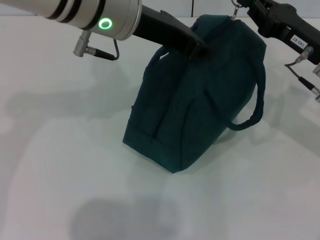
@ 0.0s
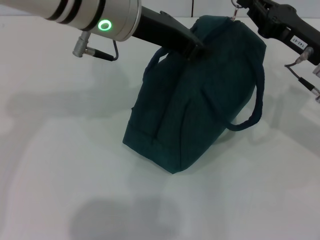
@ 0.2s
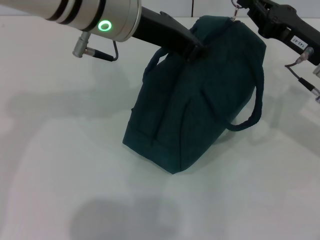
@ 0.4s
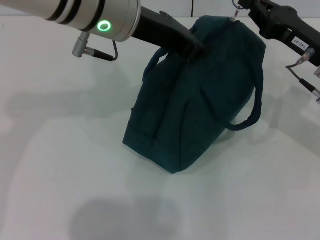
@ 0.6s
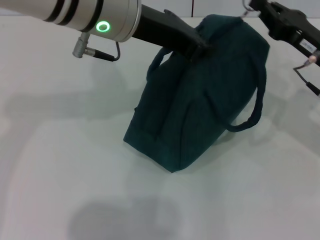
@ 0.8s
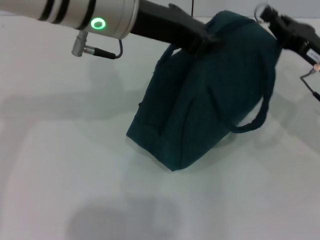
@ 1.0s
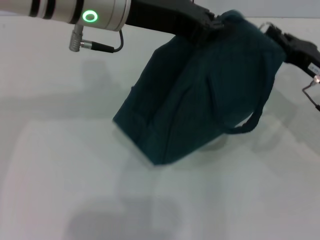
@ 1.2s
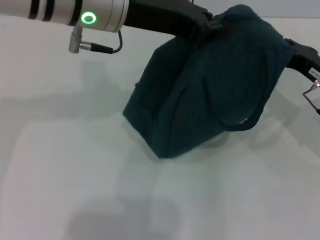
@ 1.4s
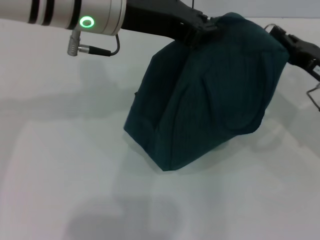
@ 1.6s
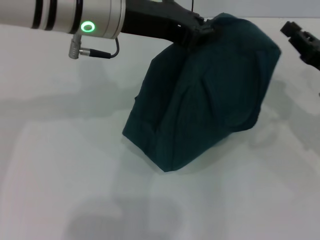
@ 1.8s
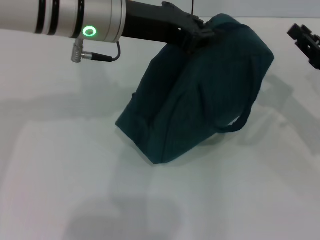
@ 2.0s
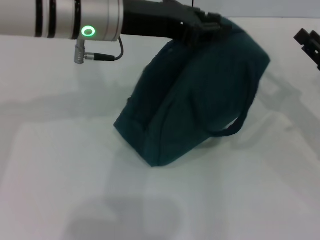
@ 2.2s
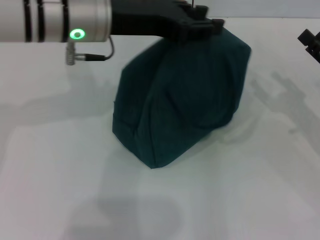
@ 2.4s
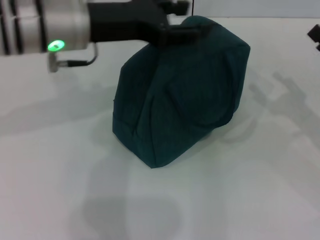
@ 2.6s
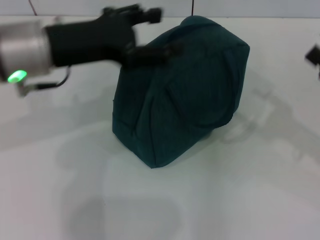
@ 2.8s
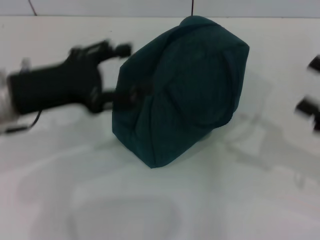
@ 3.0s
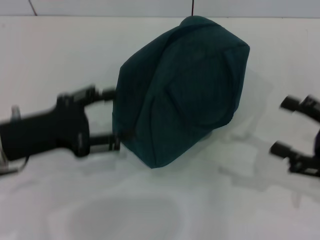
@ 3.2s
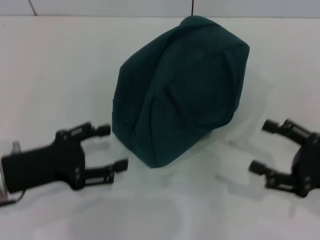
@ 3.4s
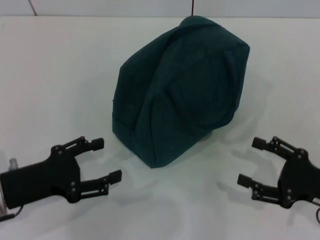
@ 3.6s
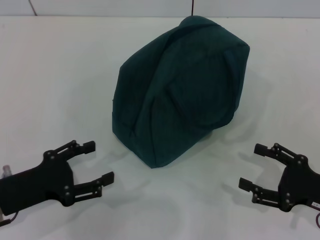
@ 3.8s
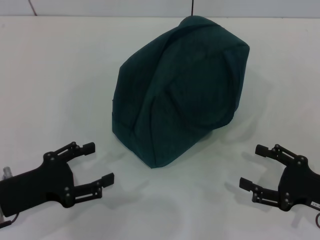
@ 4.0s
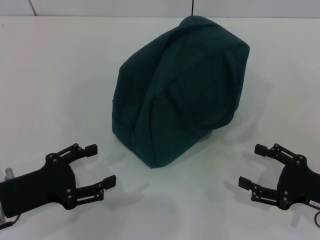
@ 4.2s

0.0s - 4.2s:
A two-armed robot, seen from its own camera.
Step, 1.8s - 2.4s: Hold the lunch bag with your left hand.
0.0s - 1.4s: The right gripper moves roughly 5 cm.
1.4s - 2.8s: The right gripper moves backward and to the right, roughly 10 cm, and opens its fingers. Meanwhile the left gripper is displaced to the left and downward by roughly 10 cm, and opens.
2.8s - 4.2s: The left gripper heads downward, backward and to the left, covering some 20 cm, while the right gripper moves downward and backward, roughly 10 cm.

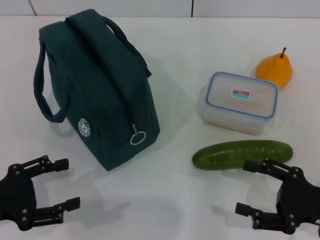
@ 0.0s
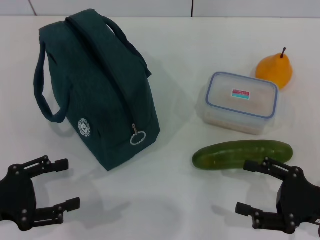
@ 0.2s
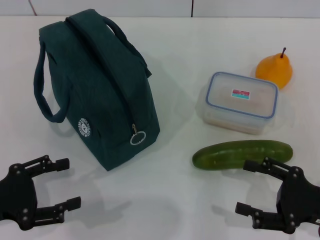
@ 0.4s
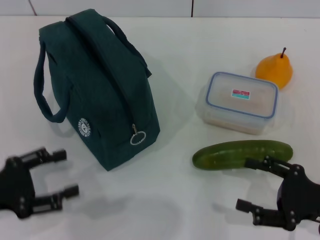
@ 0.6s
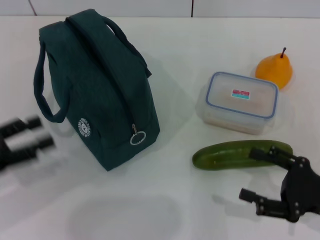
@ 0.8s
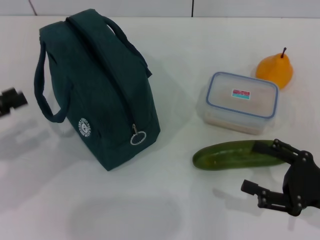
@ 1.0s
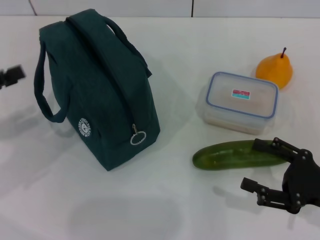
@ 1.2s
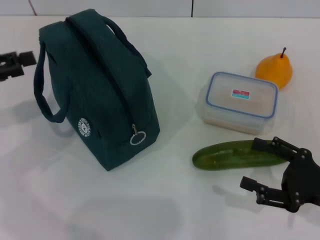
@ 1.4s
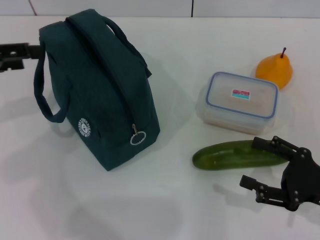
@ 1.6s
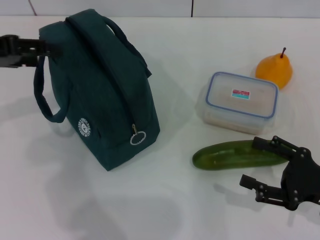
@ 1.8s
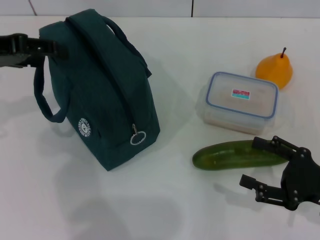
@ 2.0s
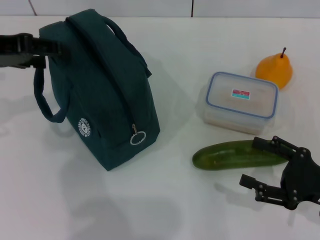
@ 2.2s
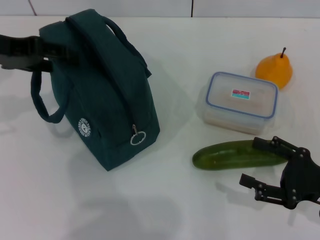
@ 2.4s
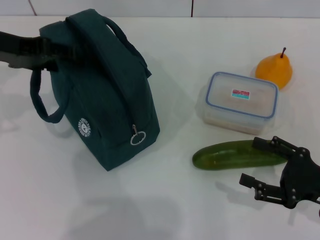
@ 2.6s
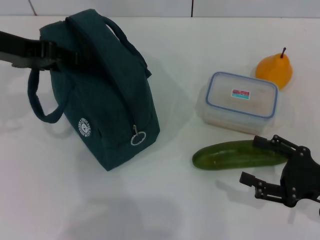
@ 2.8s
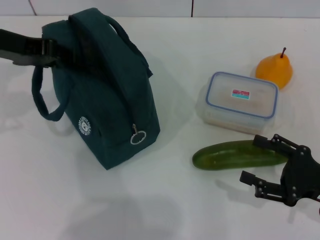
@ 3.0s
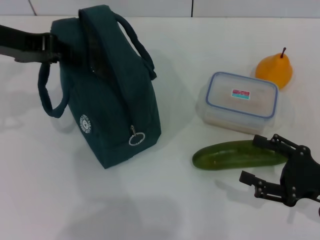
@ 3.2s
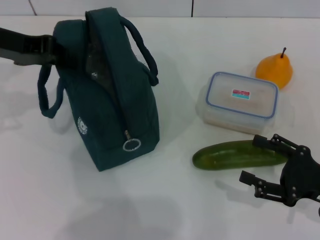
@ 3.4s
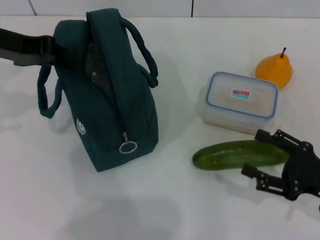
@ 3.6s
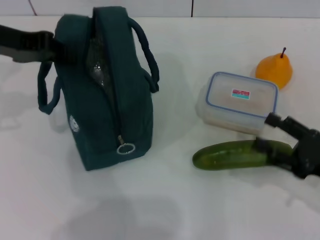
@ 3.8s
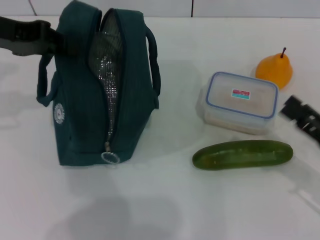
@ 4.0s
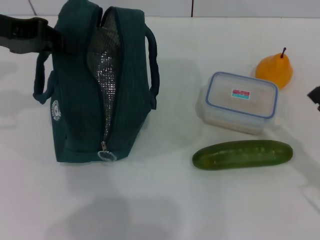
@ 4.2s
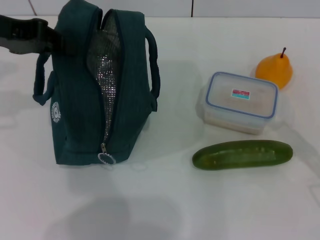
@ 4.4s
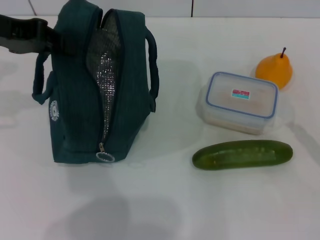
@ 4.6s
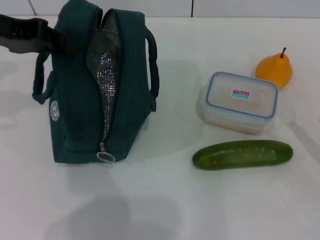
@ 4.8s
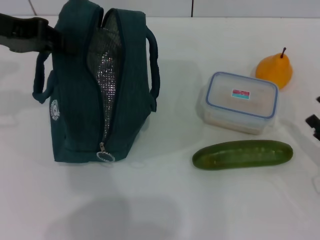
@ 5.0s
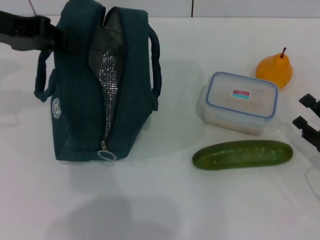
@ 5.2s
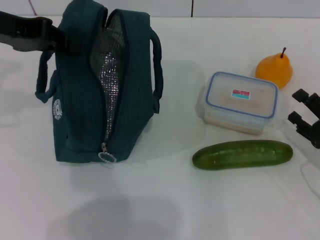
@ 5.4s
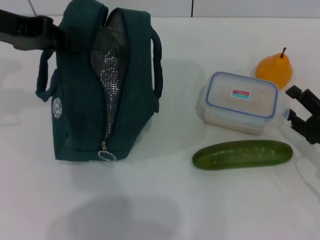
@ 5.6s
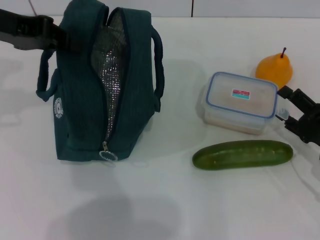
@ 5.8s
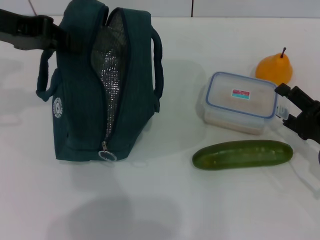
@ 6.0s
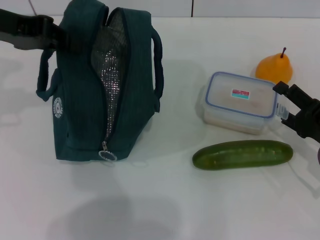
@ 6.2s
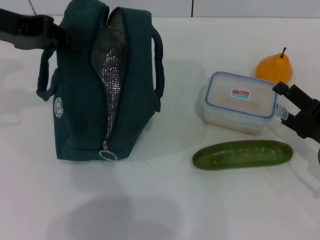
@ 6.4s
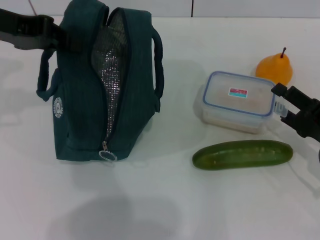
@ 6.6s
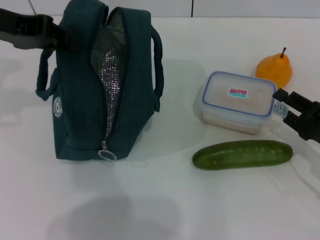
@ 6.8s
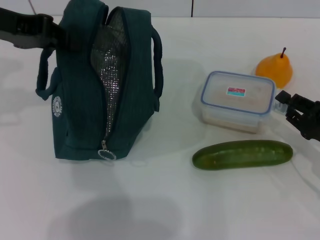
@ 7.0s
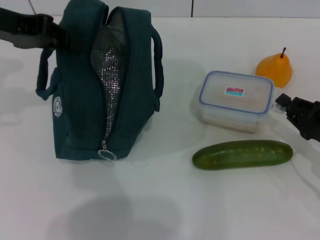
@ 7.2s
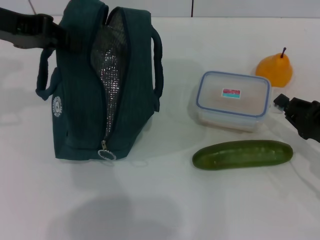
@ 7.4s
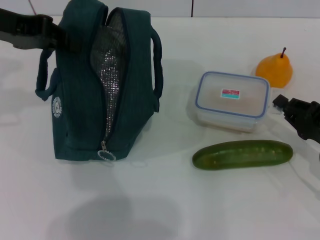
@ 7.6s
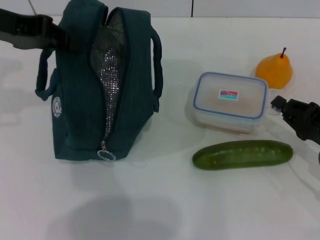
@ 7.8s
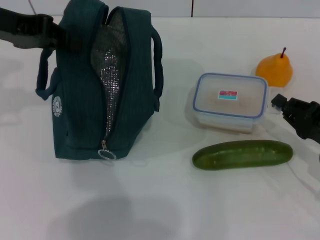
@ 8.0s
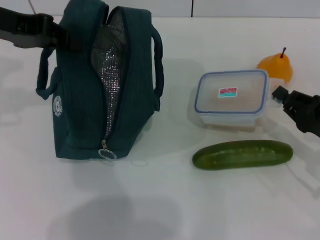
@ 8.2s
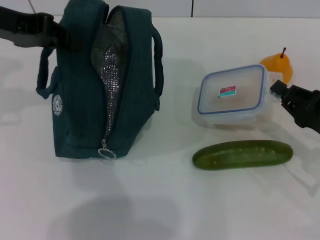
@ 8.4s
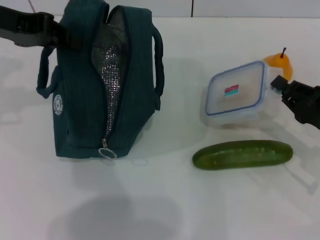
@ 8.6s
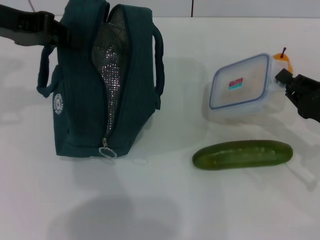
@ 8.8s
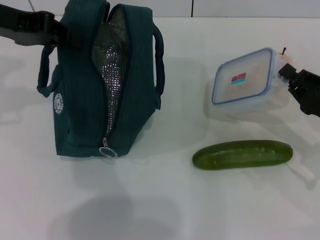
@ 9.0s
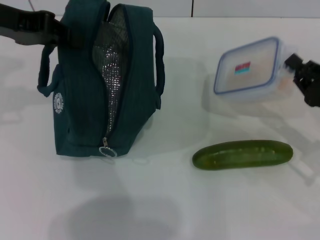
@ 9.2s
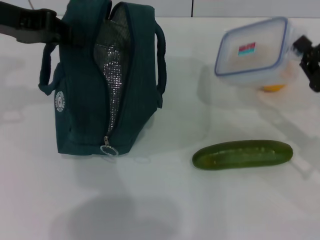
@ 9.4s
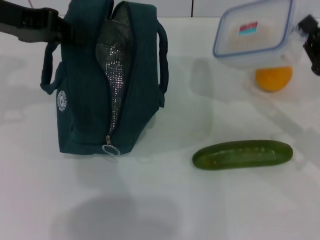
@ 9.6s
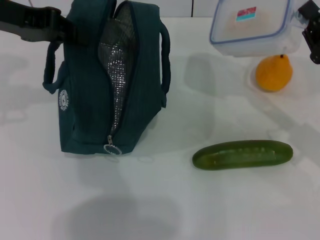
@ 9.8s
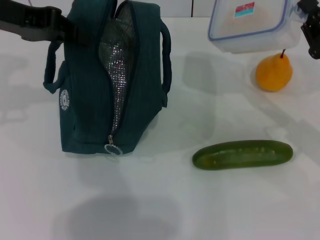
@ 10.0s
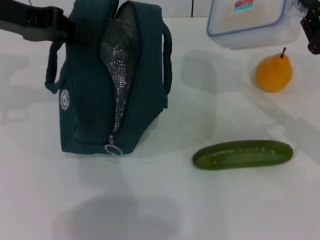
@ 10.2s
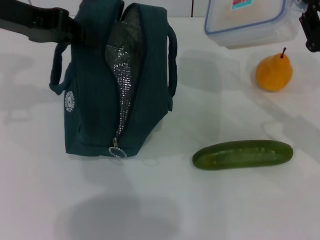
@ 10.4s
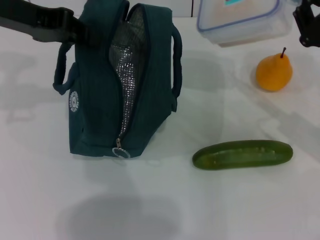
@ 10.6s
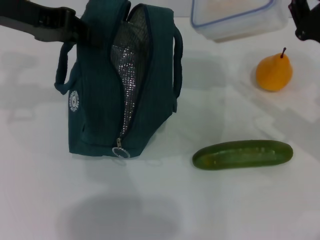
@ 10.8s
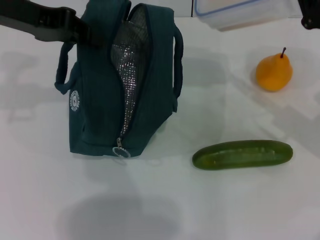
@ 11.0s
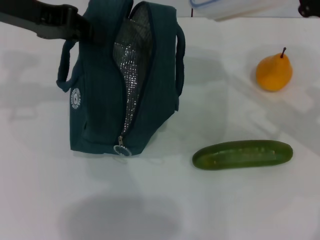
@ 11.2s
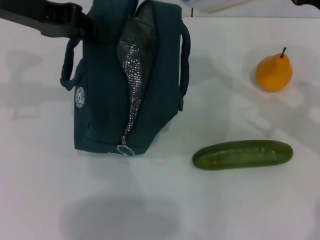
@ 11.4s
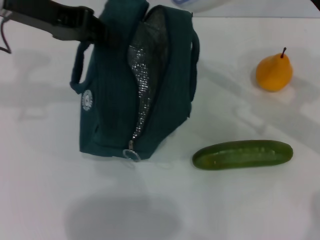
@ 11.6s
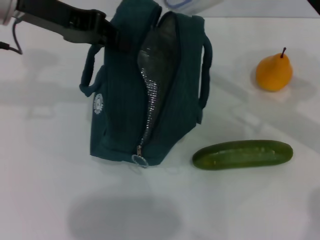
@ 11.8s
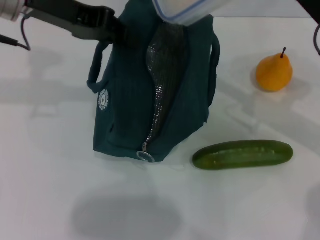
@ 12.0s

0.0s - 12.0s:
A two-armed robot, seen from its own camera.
Step, 0.0s - 3.2s: Hold the lunch bag with your left hand.
Step, 3.6s - 7.6s: Pick up the lunch box with your right hand.
0.0s - 1.6s: The left gripper goes some 20 cm upward and forward.
1.6s - 3.0s: The left gripper is displaced to the right and forward by approximately 10 cm.
3.0s - 4.4s: The left gripper closes.
4.4s - 6.0s: The right gripper travels forward by about 5 cm.
6.0s - 7.6s: The right gripper closes up.
7.6s - 9.0s: There are only small adjustments of the grippers.
9.0s - 10.4s: The right gripper shifts some 5 cm upward.
10.4s - 12.0s: The right gripper goes roughly 10 cm upward and to the left.

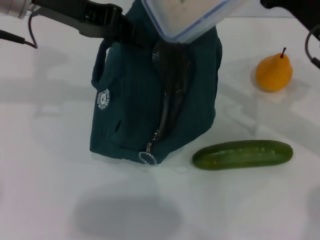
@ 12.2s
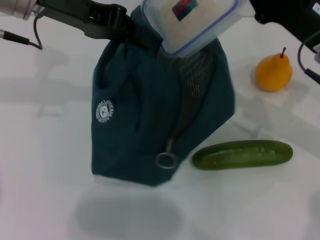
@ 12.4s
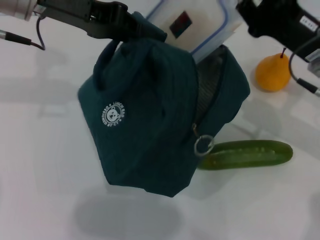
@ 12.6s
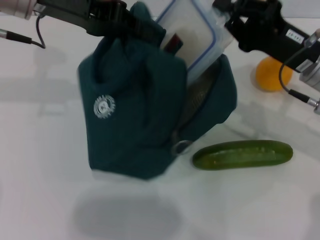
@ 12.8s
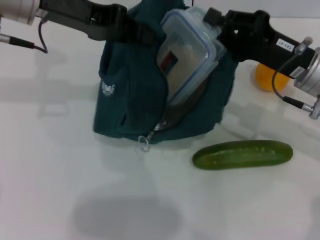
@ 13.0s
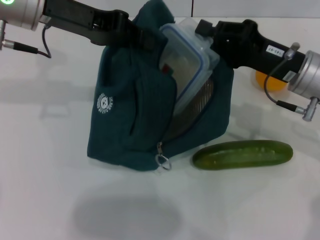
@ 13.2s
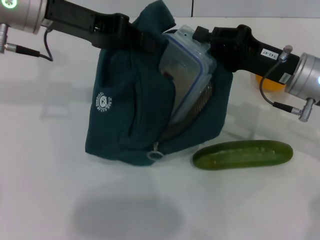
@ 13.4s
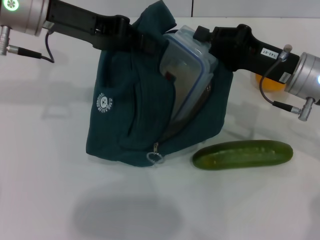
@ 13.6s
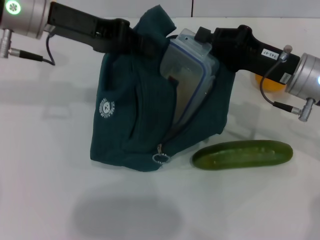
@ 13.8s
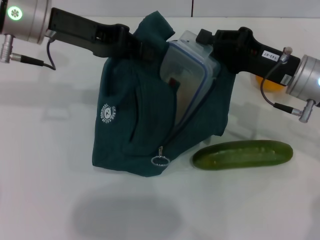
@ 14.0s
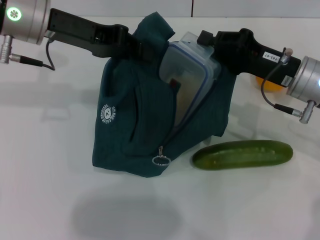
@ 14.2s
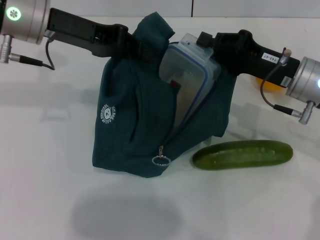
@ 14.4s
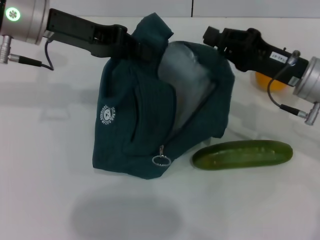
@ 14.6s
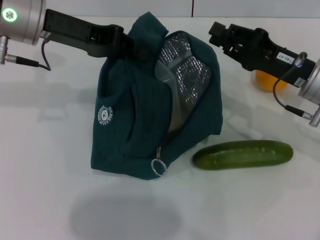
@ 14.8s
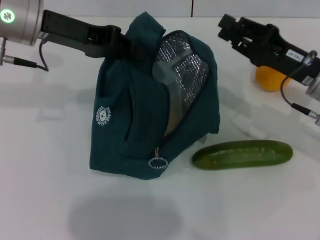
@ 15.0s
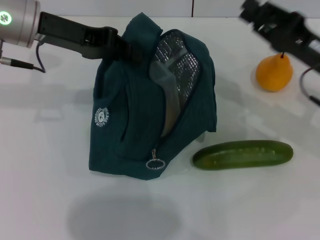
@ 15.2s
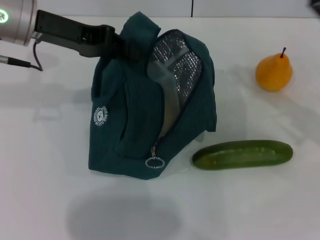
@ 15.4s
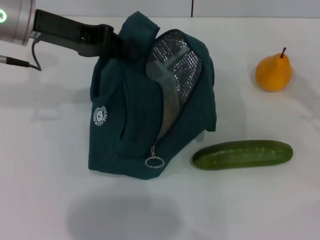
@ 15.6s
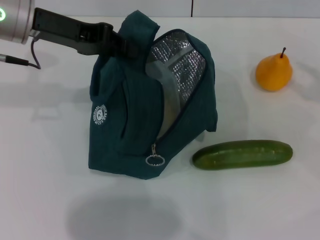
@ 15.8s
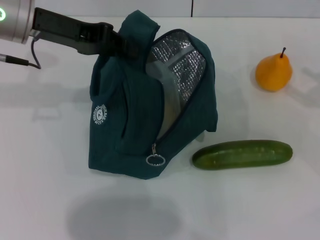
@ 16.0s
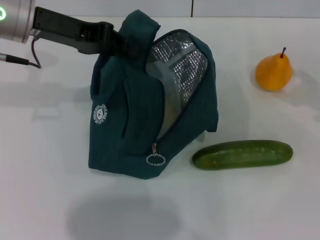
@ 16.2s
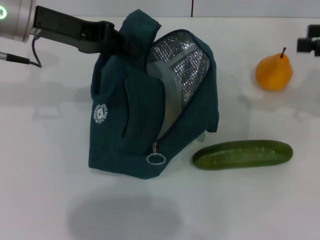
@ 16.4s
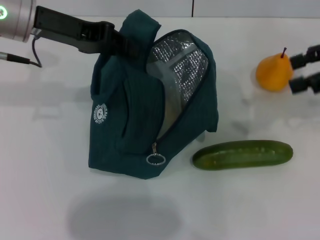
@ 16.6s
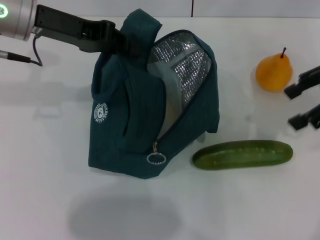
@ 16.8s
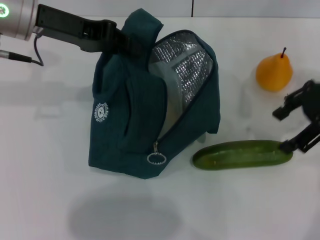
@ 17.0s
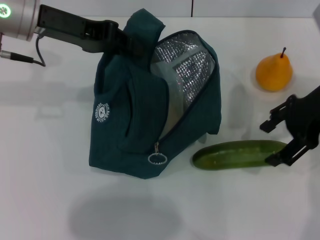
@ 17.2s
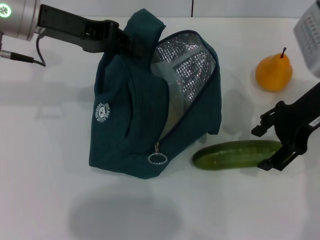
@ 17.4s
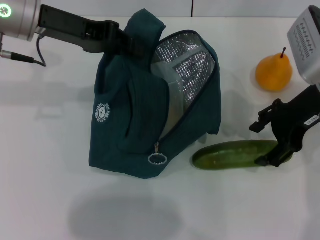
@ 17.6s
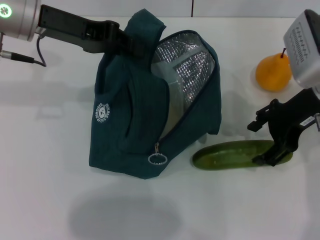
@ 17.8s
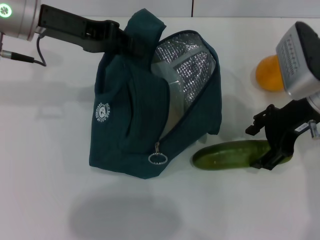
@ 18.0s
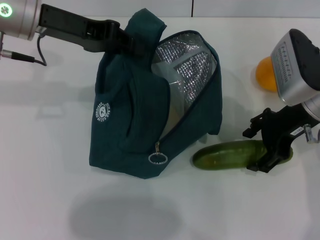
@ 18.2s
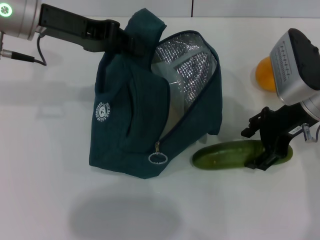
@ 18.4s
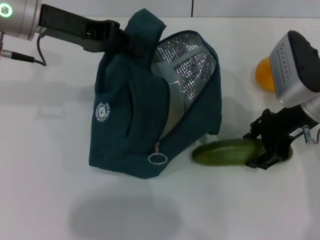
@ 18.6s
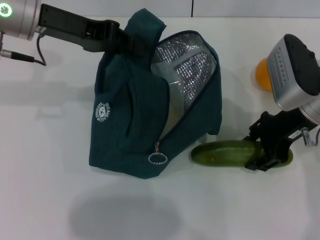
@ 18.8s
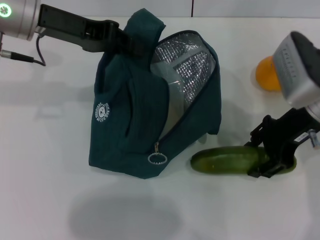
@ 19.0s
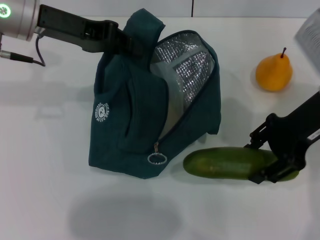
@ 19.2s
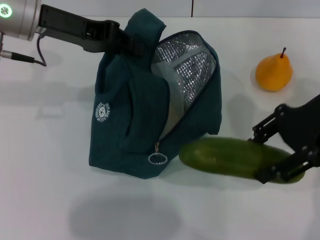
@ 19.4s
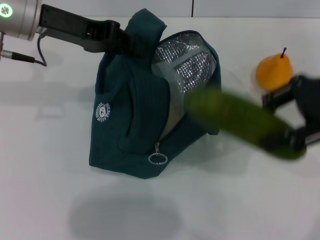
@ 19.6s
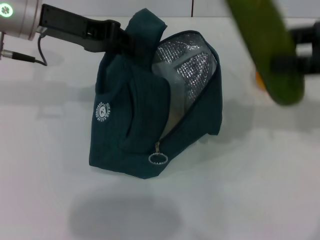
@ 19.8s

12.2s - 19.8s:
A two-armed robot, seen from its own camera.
Step, 12.2s - 14.8s: Place the lunch box into the lunch bag with your right hand.
Step, 15.0s - 18.6s: Pick up the cucumber with your right hand.
13.8s - 15.2s: The right gripper ends up roughly 5 cm from where it was, and opens its fingers.
15.2s - 16.8s: The right gripper travels upward by approximately 10 cm, goes to the right and returns, some 15 cm each way, and opens its fingers.
16.8s - 18.2s: The right gripper moves downward and to the left, roughly 15 cm.
18.2s - 19.8s: The right gripper heads to the right and upward, covering some 10 cm.
